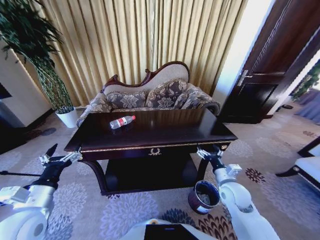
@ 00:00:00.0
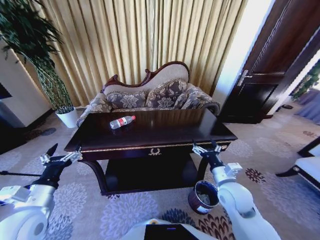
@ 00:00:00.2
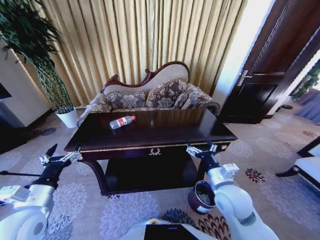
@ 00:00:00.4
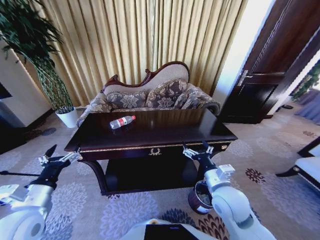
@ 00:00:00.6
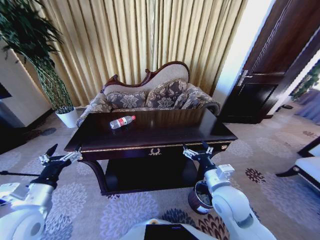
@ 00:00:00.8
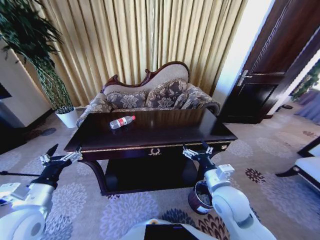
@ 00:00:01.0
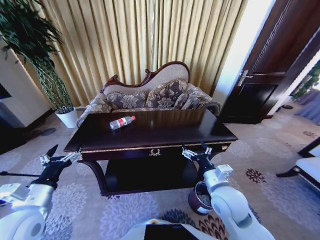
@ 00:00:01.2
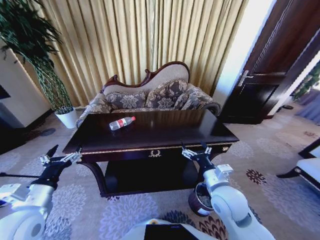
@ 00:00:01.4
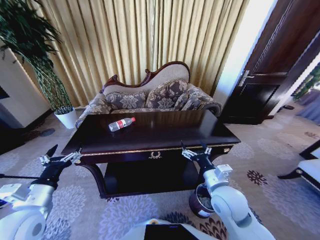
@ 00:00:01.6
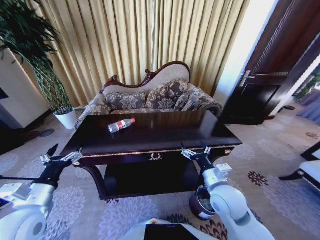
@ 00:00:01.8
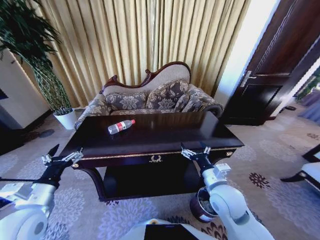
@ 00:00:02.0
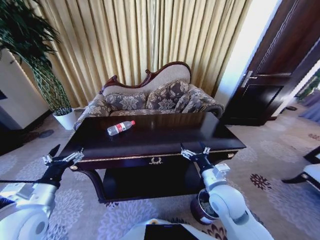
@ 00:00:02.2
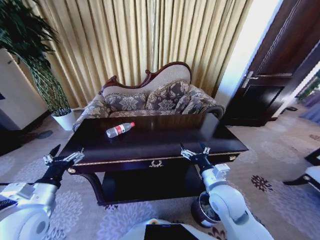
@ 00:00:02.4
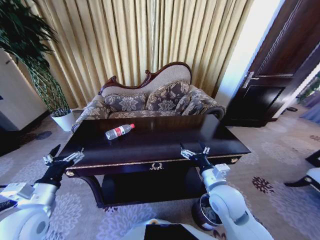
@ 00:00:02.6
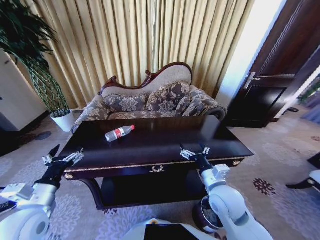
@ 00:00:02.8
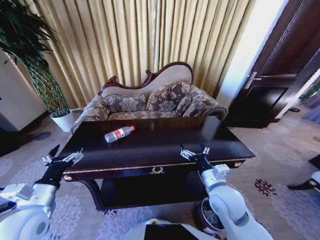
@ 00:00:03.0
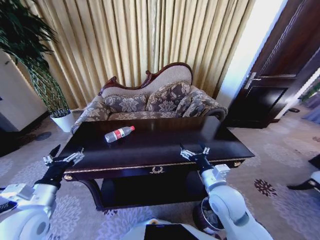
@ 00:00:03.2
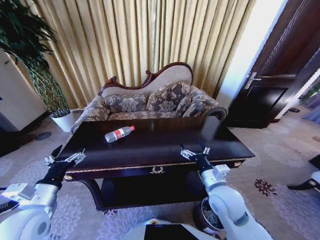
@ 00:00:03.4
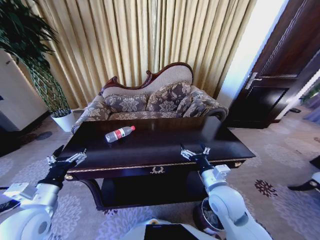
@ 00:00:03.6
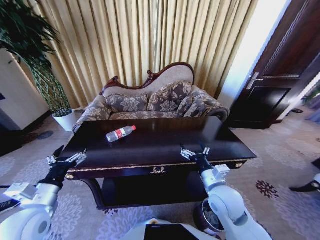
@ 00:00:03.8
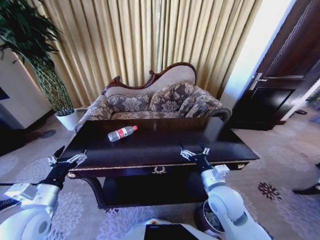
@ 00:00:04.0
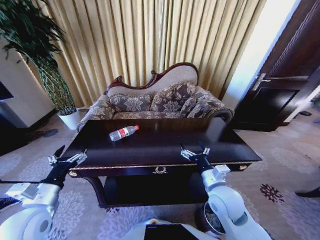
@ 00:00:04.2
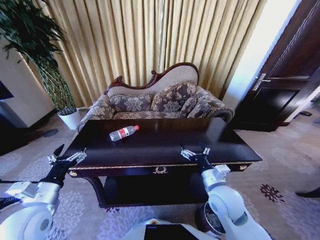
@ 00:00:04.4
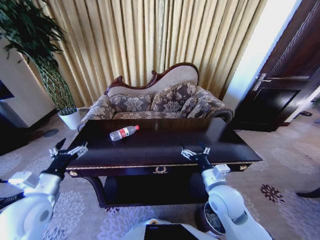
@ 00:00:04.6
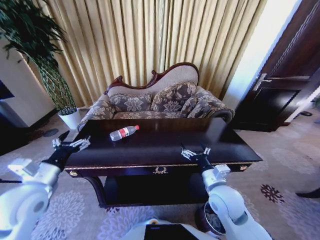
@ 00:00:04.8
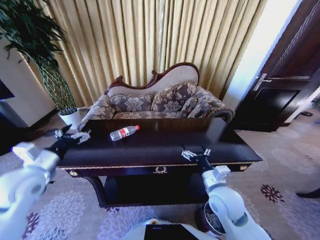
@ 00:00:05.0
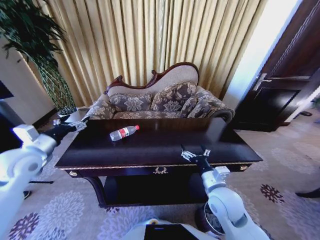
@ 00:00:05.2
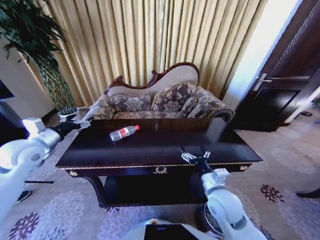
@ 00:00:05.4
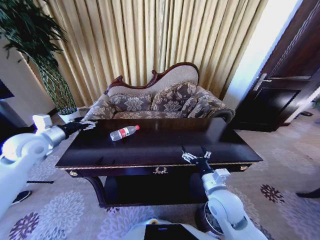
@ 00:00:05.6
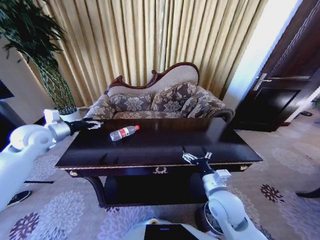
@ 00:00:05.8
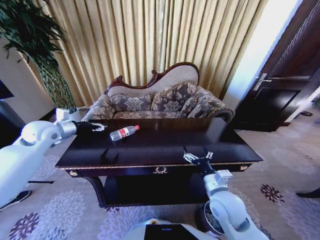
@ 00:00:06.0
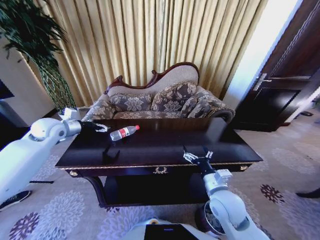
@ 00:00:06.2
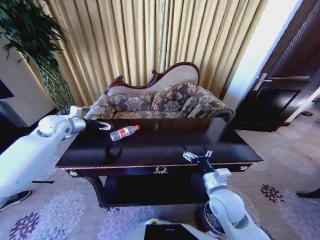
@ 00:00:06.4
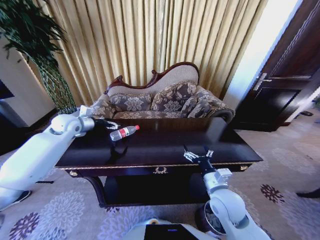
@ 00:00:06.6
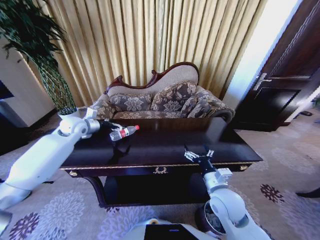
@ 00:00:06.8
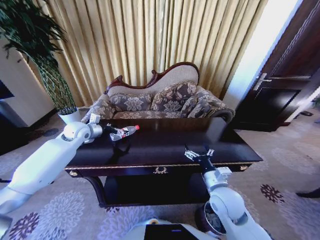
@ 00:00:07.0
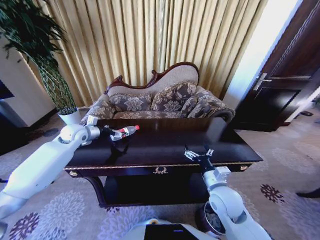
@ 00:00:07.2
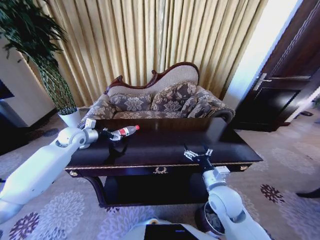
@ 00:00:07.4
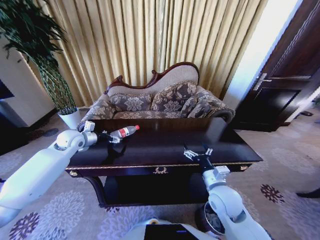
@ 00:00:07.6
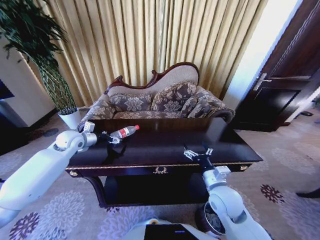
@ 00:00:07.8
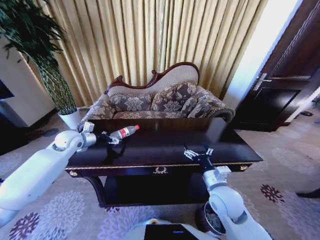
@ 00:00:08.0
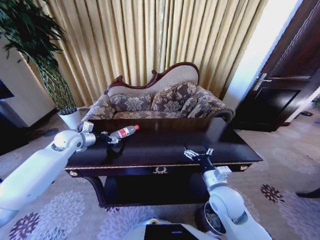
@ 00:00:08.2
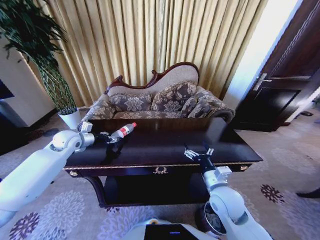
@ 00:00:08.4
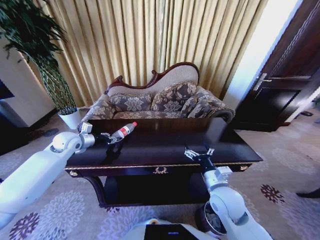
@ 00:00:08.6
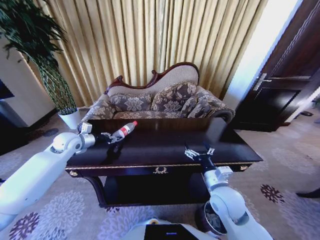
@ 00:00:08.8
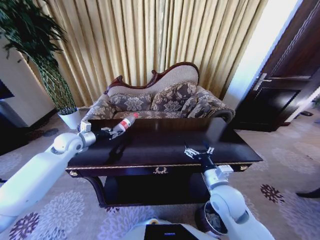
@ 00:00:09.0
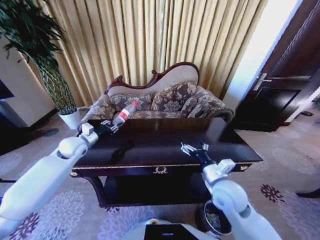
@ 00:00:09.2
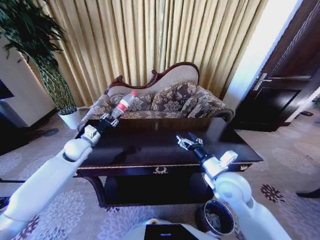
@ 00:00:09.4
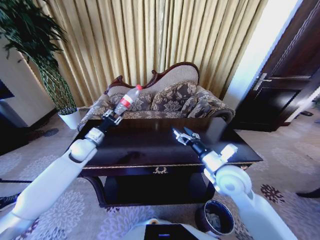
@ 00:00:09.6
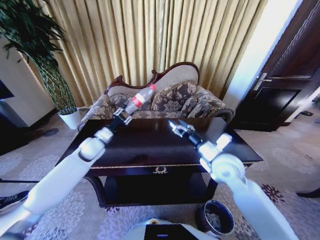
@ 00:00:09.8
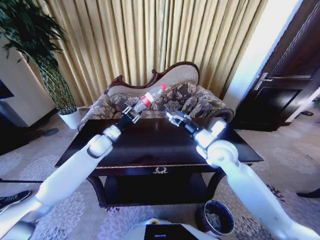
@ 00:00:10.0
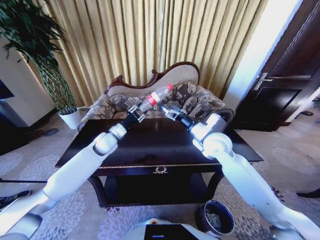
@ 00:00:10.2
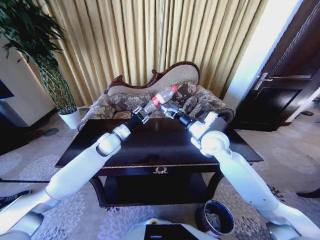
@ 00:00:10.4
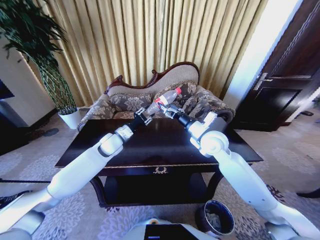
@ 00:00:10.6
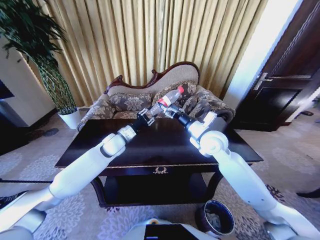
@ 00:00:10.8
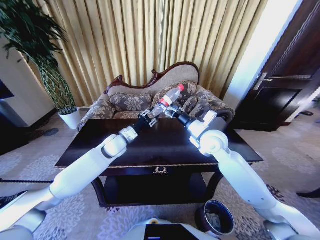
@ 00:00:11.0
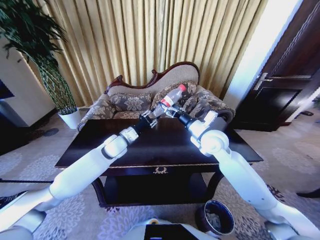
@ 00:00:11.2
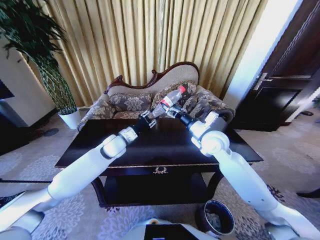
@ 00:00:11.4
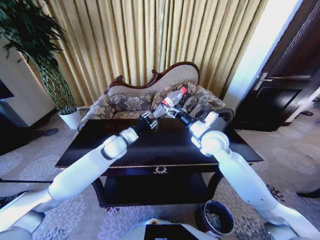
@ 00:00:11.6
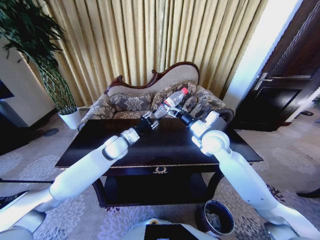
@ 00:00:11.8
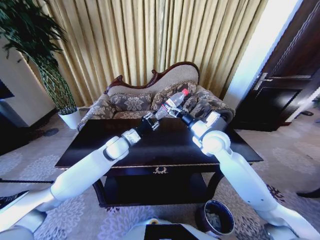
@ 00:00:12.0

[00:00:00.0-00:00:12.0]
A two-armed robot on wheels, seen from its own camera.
Task of the whole recording: Move to the front of the table and place the trash on the table into the trash bin.
00:00:00.0 to 00:00:01.6: The right gripper shifts about 10 cm to the left and upward.
00:00:04.4 to 00:00:06.0: The left gripper is displaced forward by roughly 25 cm.
00:00:06.0 to 00:00:07.6: The left gripper heads downward and to the right, covering approximately 10 cm.
00:00:07.6 to 00:00:09.0: The left gripper closes its fingers.
00:00:09.0 to 00:00:10.4: The right gripper travels forward and upward by some 20 cm. The left gripper moves to the right, roughly 15 cm.
00:00:10.4 to 00:00:12.0: The grippers stay close to where they were, moving slightly.

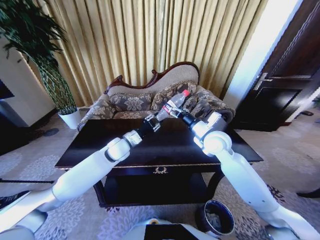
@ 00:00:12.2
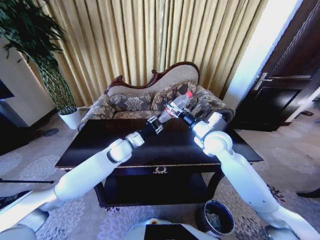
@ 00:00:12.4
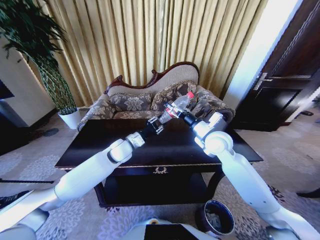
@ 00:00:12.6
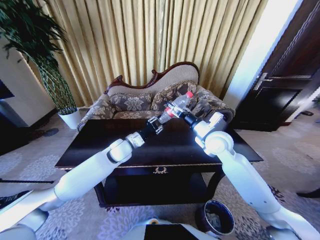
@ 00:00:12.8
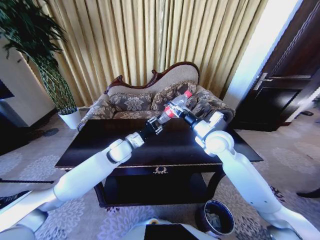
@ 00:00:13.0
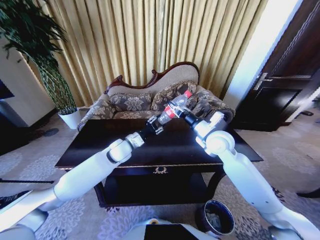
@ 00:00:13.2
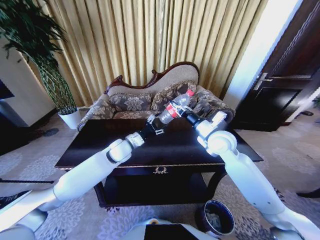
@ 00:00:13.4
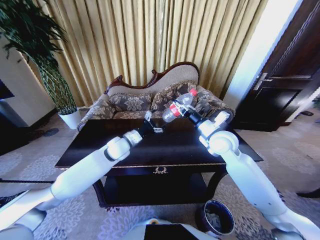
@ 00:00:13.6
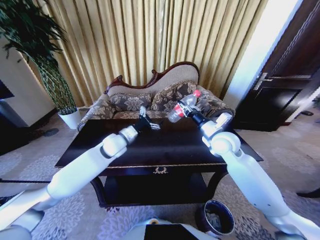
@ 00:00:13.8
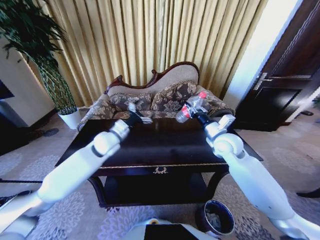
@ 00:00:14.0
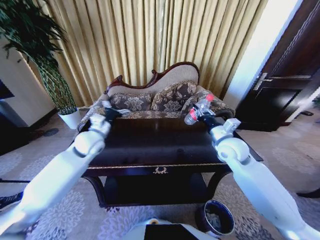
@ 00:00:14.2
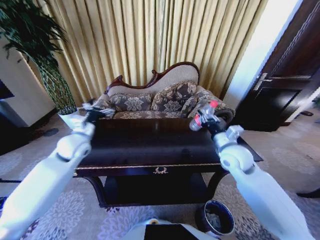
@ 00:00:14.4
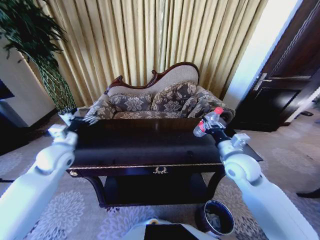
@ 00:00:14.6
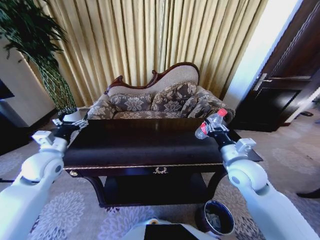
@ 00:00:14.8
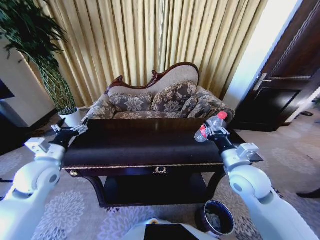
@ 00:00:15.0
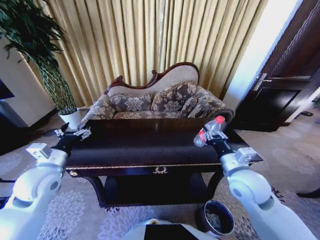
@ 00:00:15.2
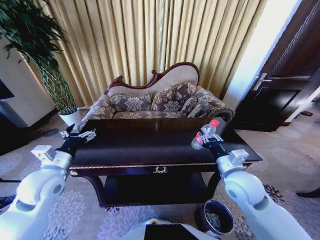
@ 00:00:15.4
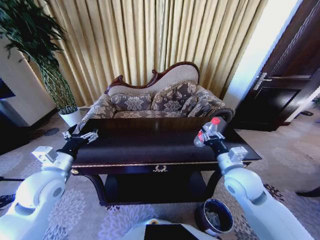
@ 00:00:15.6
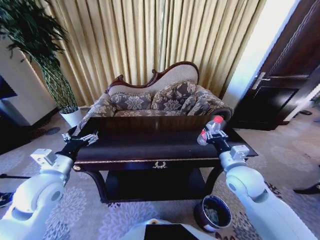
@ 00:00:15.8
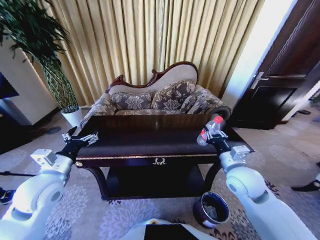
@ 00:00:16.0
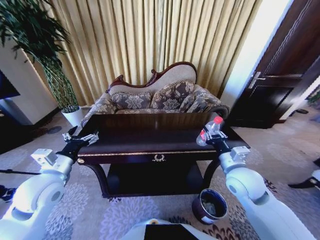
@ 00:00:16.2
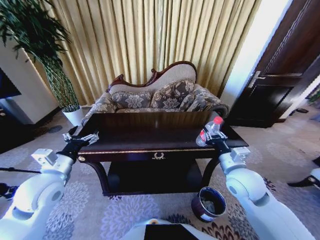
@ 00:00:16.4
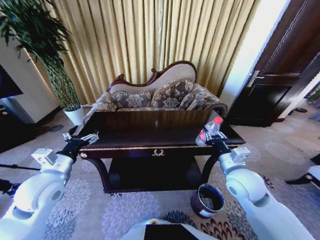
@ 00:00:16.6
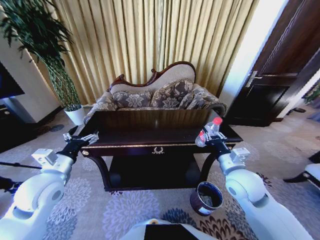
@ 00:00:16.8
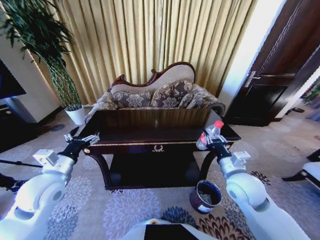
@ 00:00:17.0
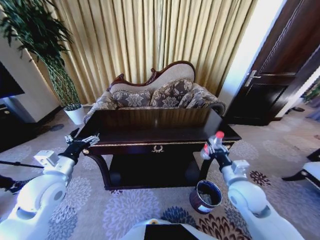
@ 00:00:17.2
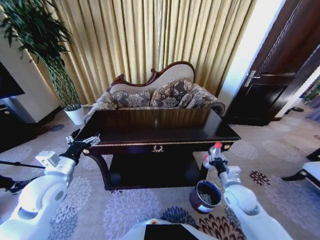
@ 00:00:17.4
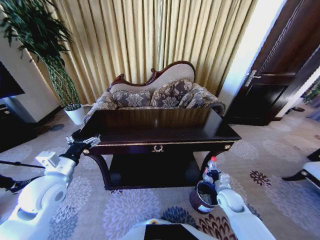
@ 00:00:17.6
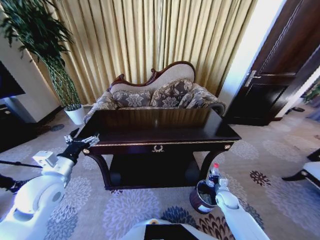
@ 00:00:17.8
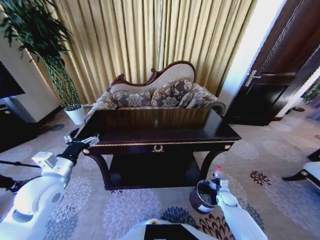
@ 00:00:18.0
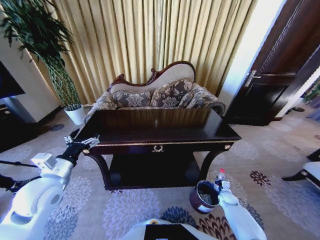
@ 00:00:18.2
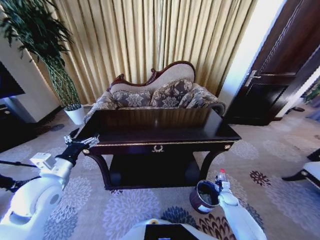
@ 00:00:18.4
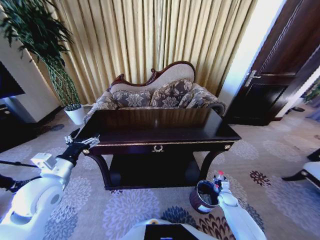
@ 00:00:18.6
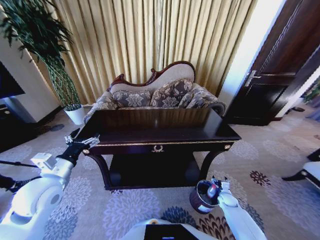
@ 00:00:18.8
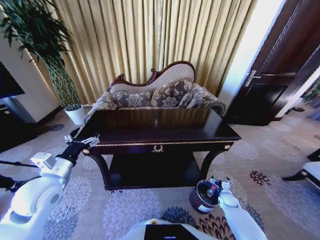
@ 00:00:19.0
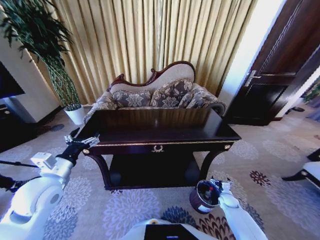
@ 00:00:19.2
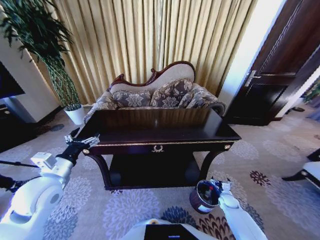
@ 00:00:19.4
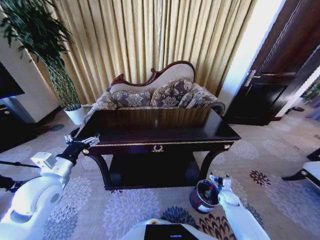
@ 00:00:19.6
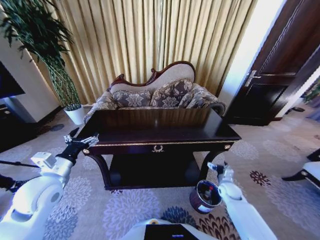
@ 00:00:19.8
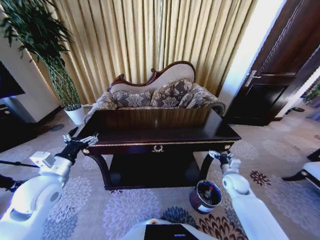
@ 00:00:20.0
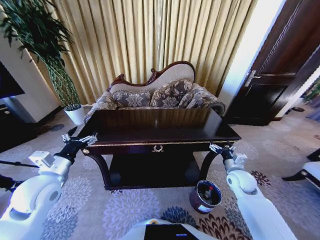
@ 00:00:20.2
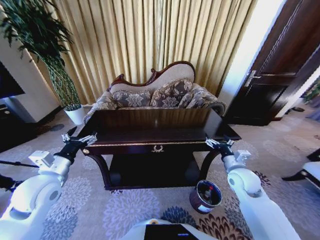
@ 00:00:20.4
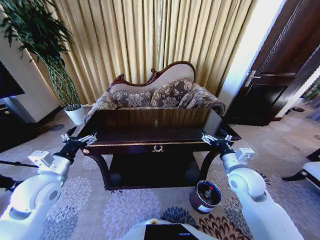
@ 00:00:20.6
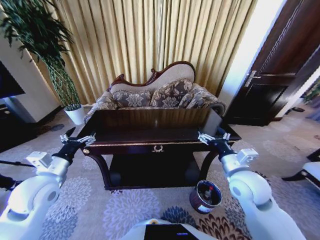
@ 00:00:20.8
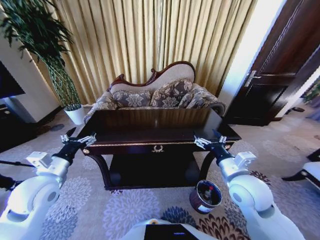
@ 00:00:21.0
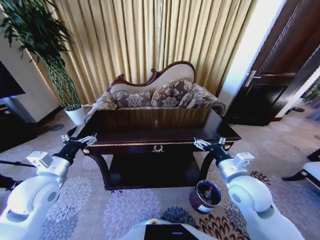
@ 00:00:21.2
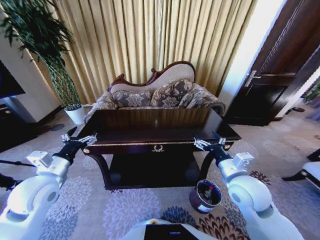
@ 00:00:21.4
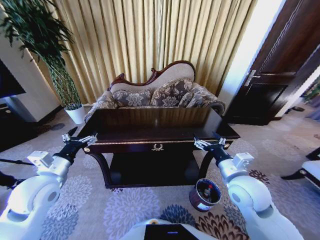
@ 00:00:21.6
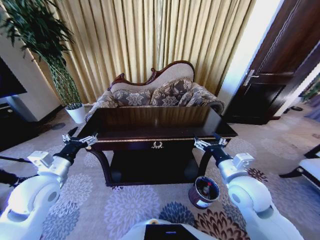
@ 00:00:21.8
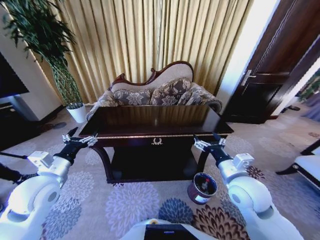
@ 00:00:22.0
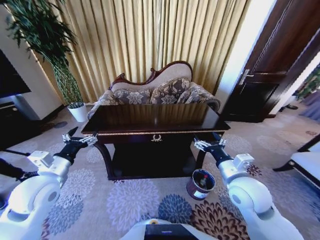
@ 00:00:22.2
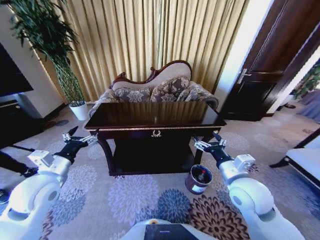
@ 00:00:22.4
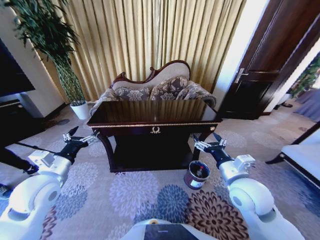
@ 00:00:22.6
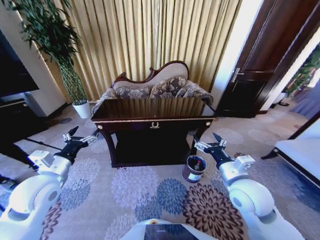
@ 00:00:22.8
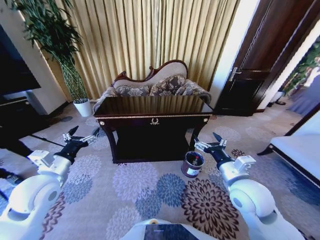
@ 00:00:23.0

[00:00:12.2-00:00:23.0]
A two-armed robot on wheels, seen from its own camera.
Task of the whole recording: Move to the front of the table and place the trash on the table into the trash bin.
00:00:12.2 to 00:00:13.8: The right gripper closes; the left gripper opens.
00:00:13.8 to 00:00:15.2: The left gripper shifts about 25 cm to the left and backward. Meanwhile the right gripper goes approximately 15 cm backward.
00:00:16.8 to 00:00:18.4: The right gripper travels downward and to the right by roughly 40 cm.
00:00:18.4 to 00:00:20.0: The right gripper heads upward, covering approximately 20 cm, and opens up.
00:00:20.0 to 00:00:21.4: The right gripper travels upward, to the left and backward by about 25 cm.
